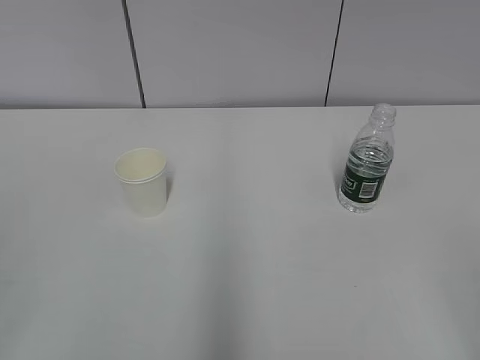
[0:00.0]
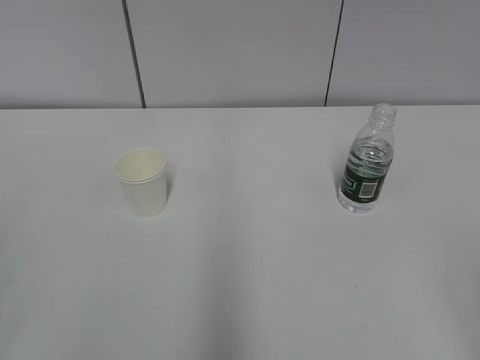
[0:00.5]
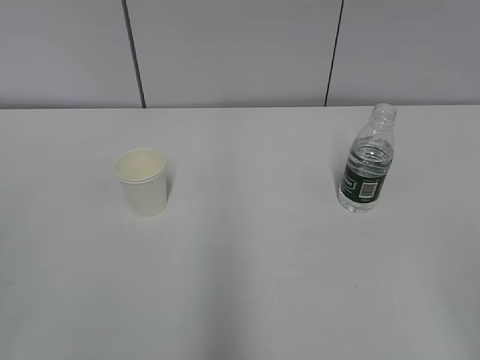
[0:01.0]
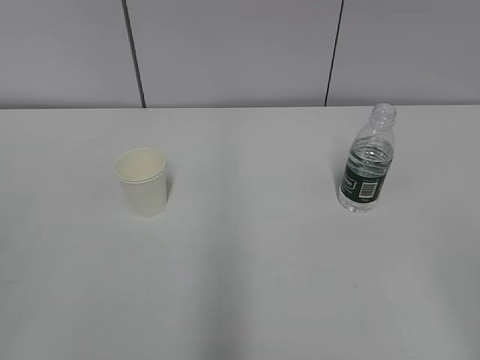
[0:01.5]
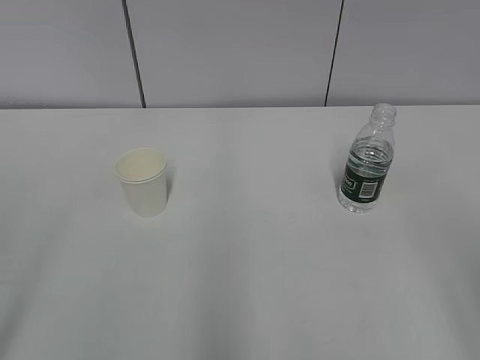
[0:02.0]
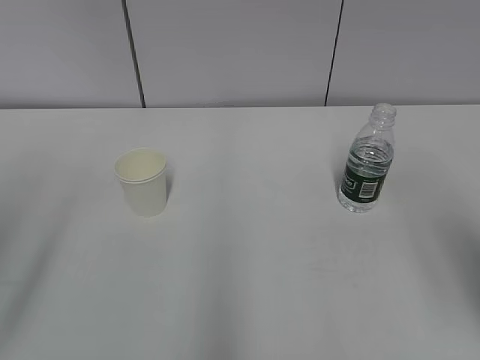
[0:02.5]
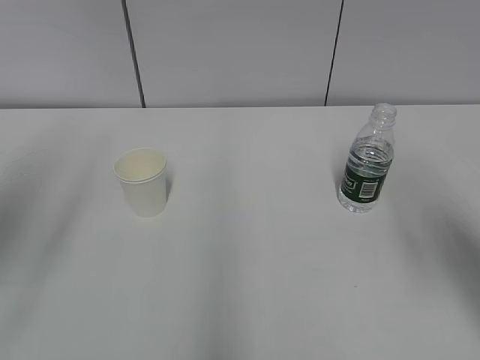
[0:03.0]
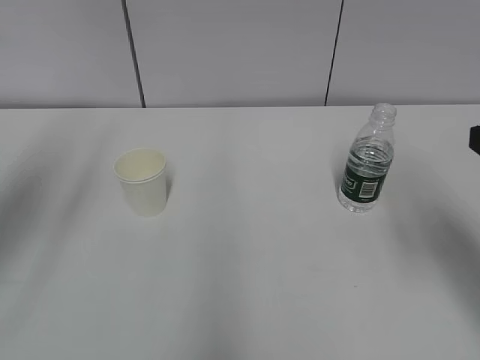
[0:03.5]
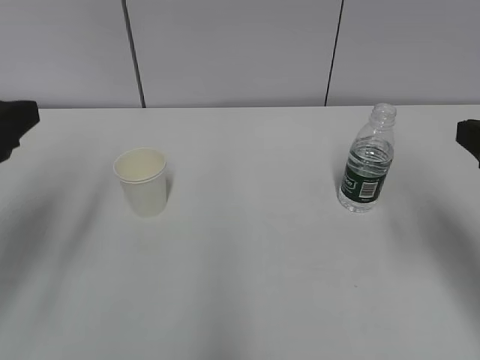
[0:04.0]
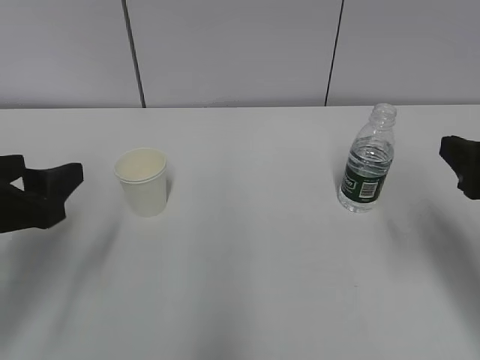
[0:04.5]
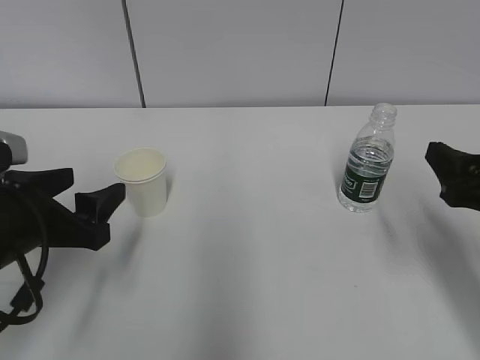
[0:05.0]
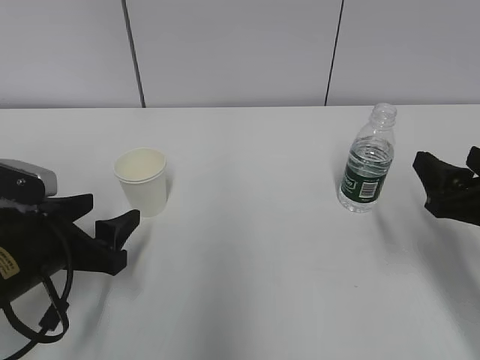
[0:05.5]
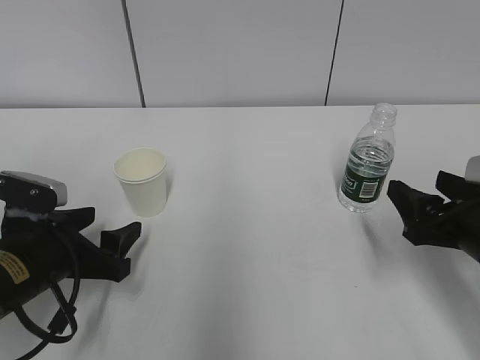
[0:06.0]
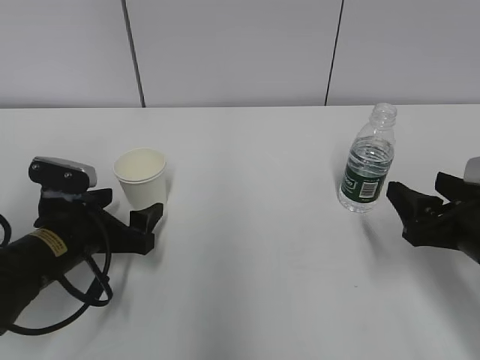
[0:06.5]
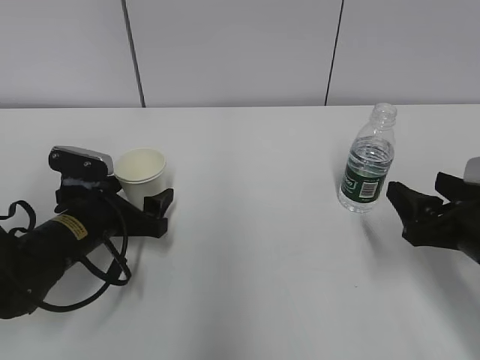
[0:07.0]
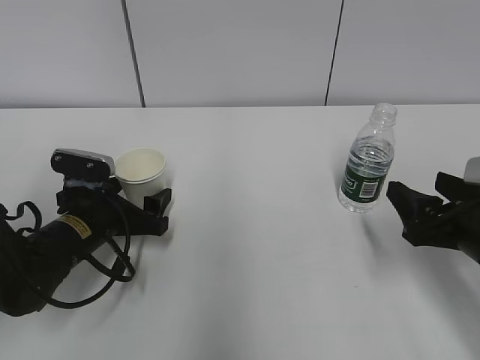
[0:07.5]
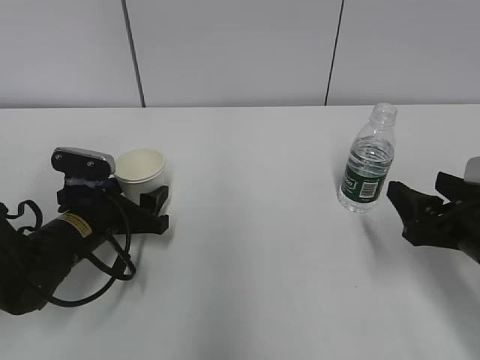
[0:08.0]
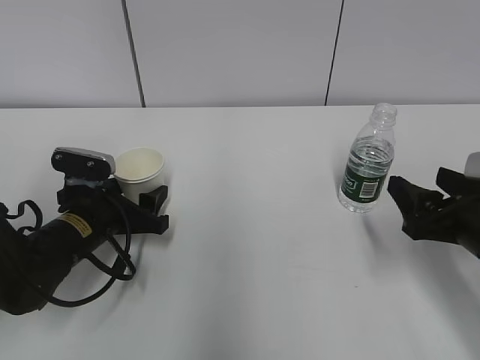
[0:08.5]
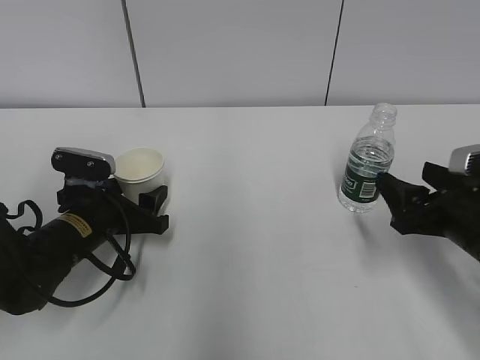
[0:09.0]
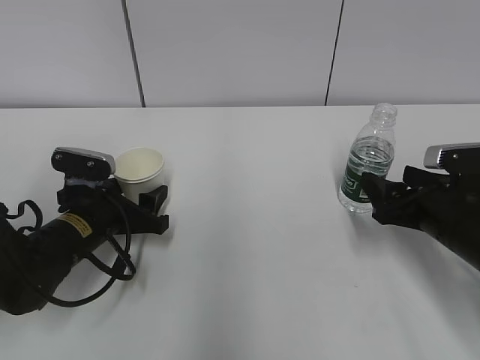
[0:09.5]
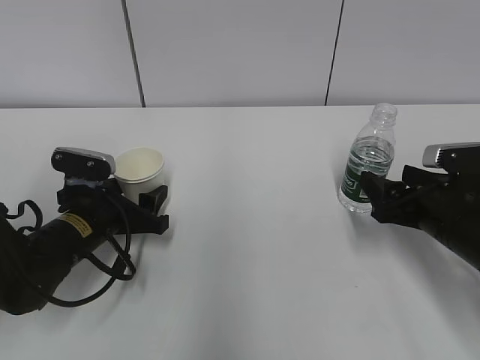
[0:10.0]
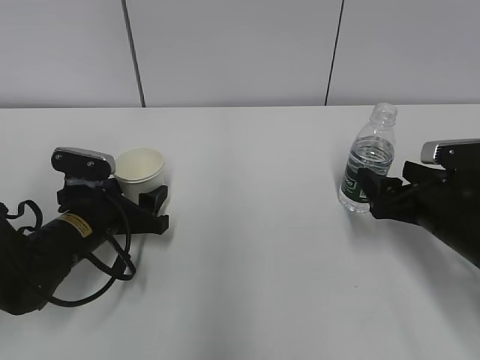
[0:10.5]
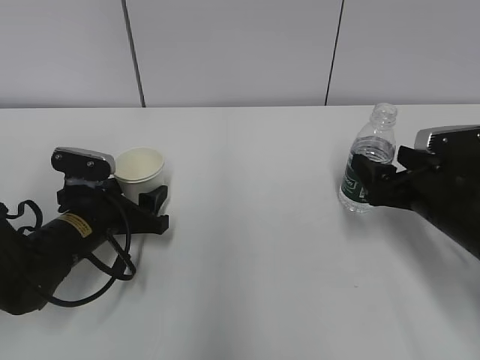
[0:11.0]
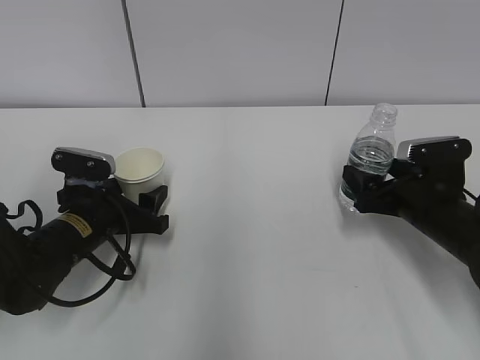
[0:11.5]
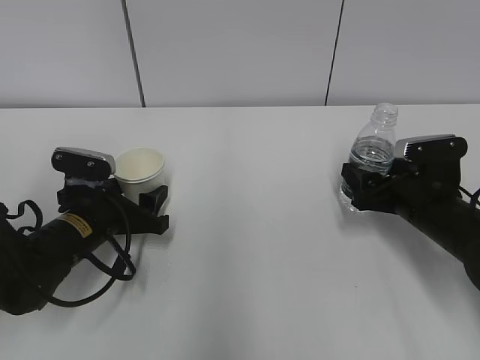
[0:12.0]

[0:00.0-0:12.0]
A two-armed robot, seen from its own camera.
Step, 0:00.0 to 0:11.5: Grab the paper cup with the left hand.
0:02.0 to 0:04.0: Both grippers travel together forward, about 20 cm.
0:04.0 to 0:06.0: The grippers both shift downward by roughly 15 cm.
0:06.0 to 0:08.0: The left gripper goes roughly 10 cm forward.
0:08.0 to 0:10.0: The right gripper is displaced forward by approximately 5 cm.
0:10.0 to 0:12.0: The right gripper opens and closes again.

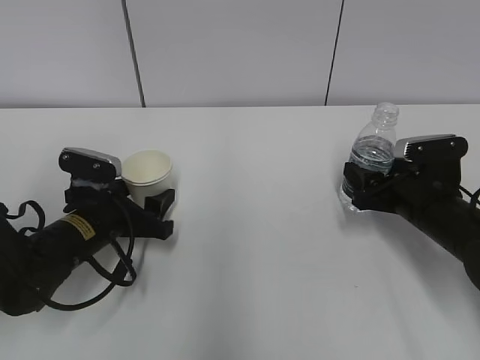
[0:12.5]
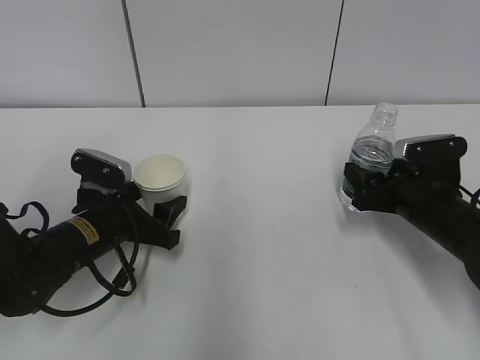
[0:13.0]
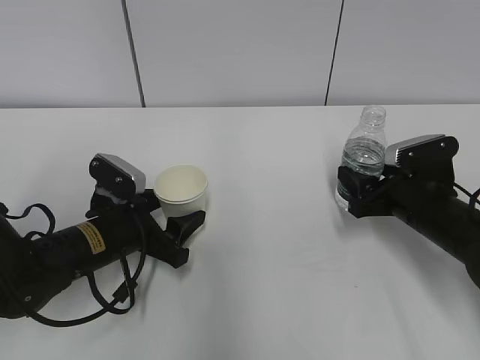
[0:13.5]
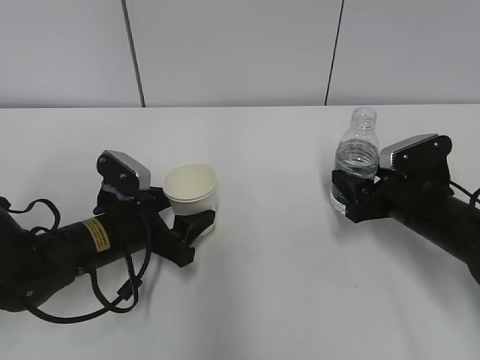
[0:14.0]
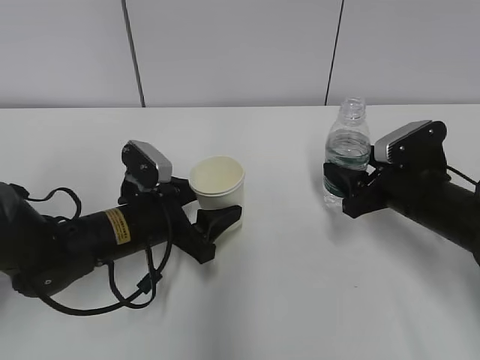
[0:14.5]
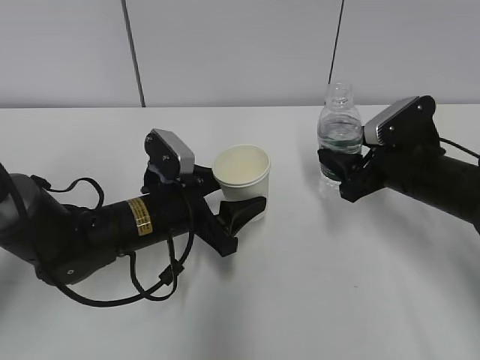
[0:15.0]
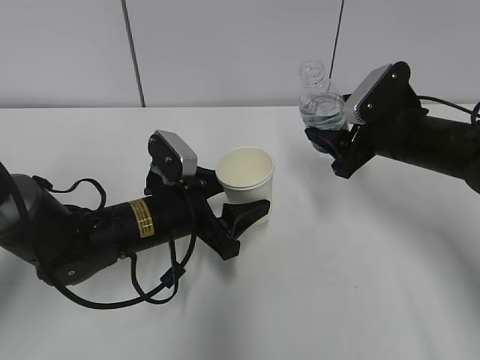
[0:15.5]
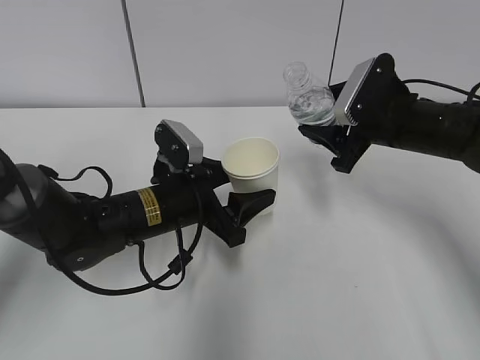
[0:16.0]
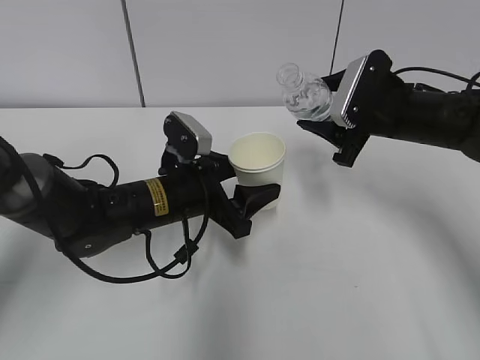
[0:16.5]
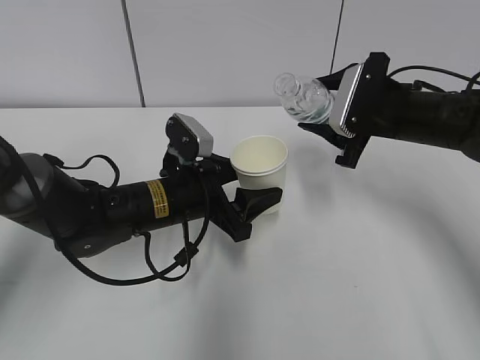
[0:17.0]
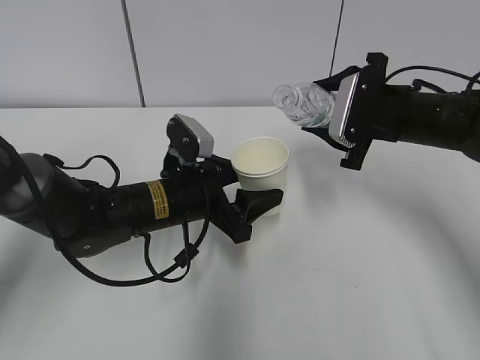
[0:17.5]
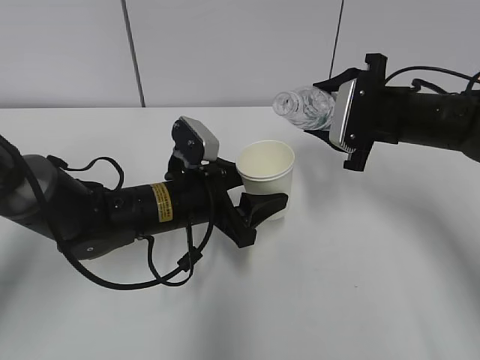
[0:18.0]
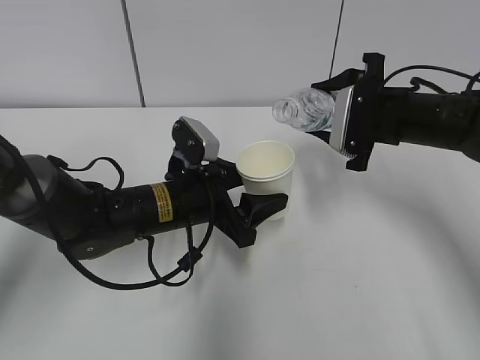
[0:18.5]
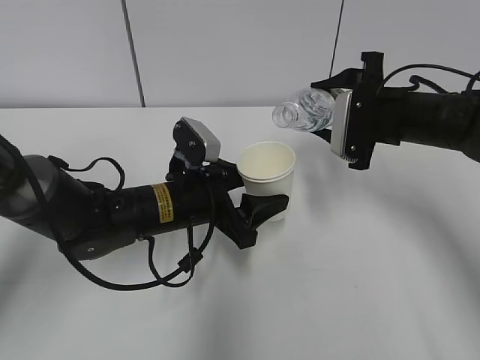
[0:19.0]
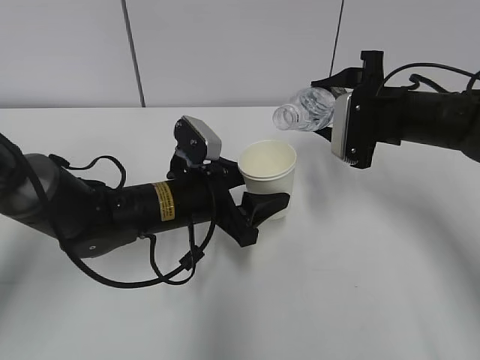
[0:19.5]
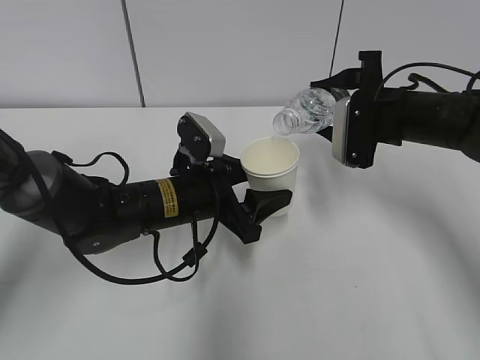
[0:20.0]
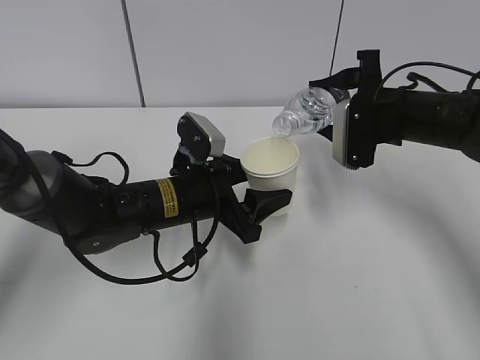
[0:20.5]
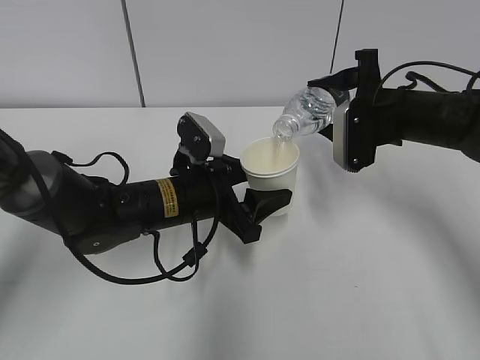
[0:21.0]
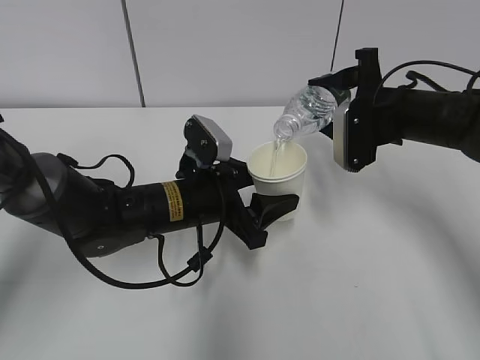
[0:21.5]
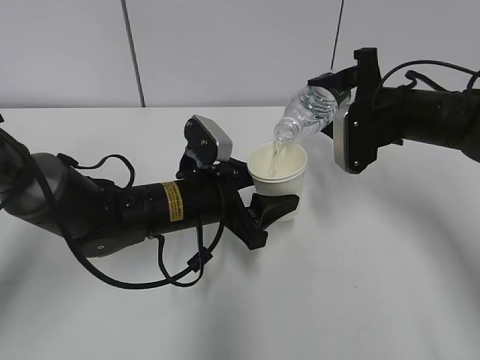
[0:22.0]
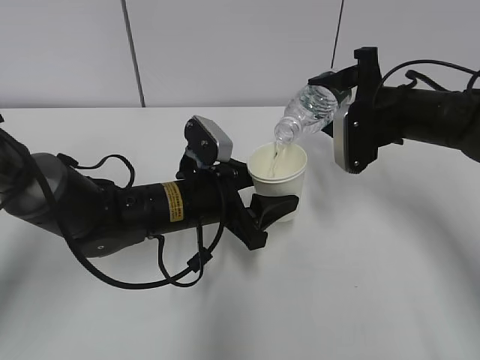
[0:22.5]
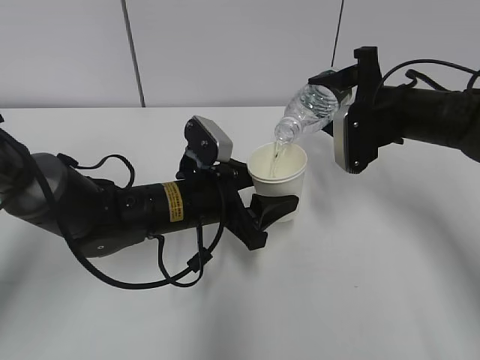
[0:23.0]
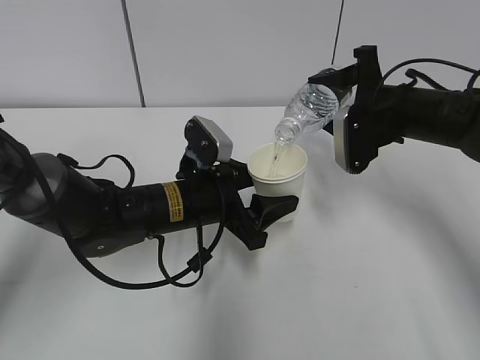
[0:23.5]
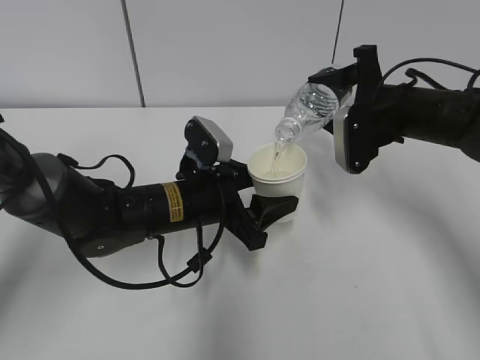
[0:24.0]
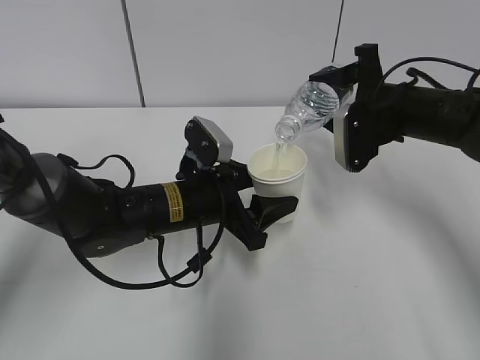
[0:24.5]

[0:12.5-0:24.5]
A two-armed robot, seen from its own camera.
Step, 0:12.5 to 0:17.0: Lift the paper cup with the left hand.
Step, 0:17.5 to 0:21.0: Fill water with the left hand.
Step, 0:17.5 to 0:21.0: Pour water with the right hand.
0:12.5 to 0:14.5: The left gripper shifts approximately 5 cm to the right.
0:14.5 to 0:16.5: The left gripper ends up about 5 cm from where it was. Meanwhile the right gripper travels upward and forward by about 10 cm.
0:18.5 to 0:20.5: The grippers stay close to where they were, moving slightly.
0:20.5 to 0:22.5: The grippers move only a little.
0:22.5 to 0:24.5: Both grippers stay put.

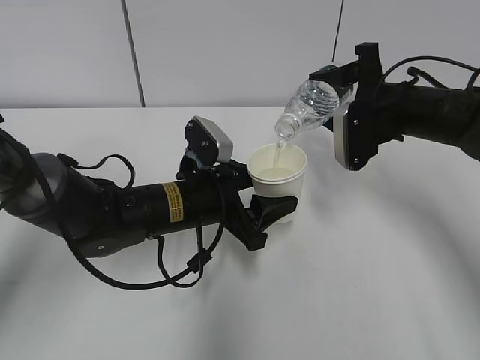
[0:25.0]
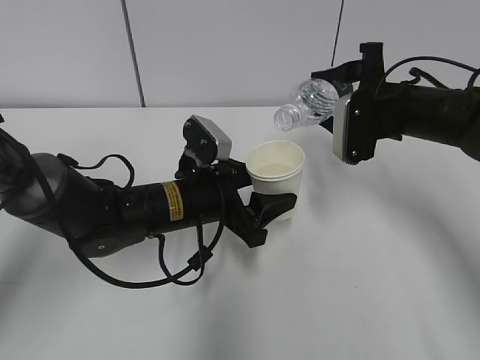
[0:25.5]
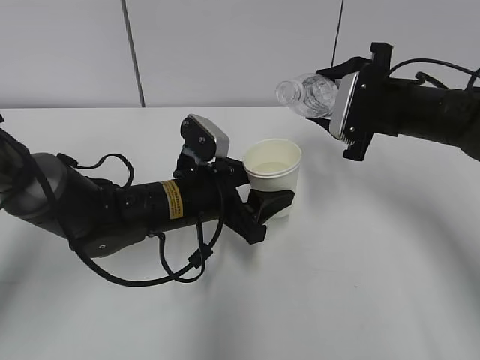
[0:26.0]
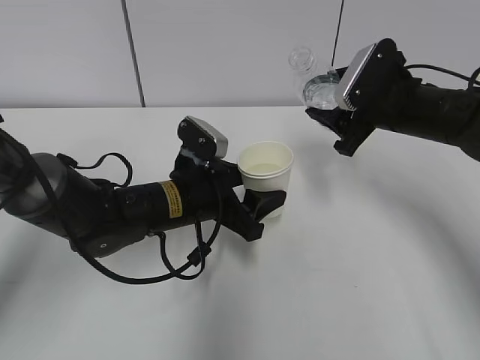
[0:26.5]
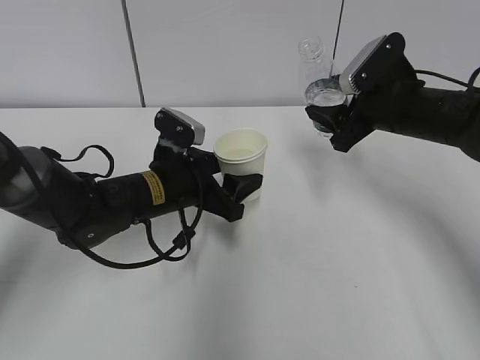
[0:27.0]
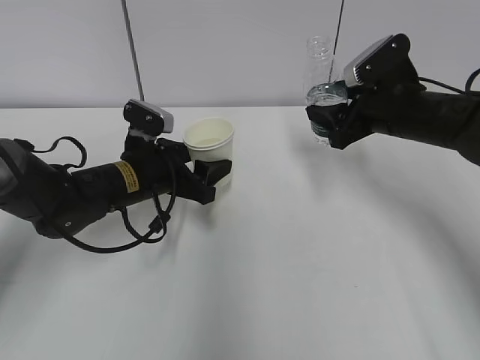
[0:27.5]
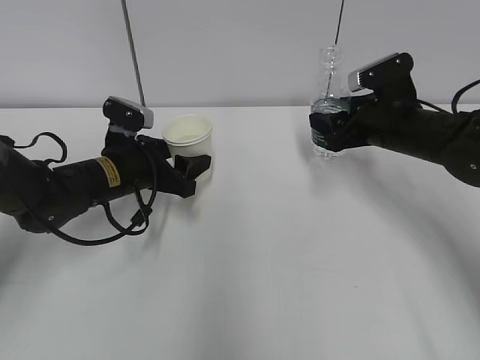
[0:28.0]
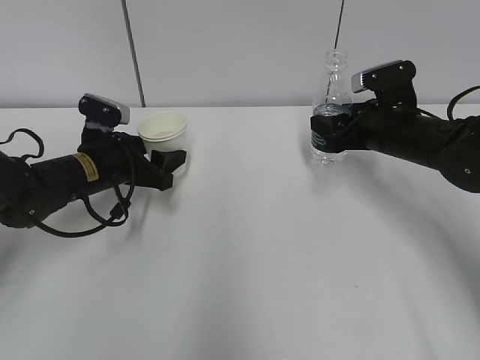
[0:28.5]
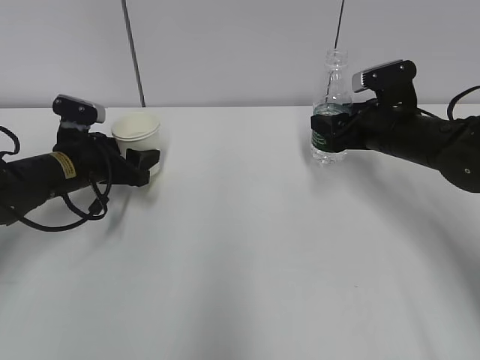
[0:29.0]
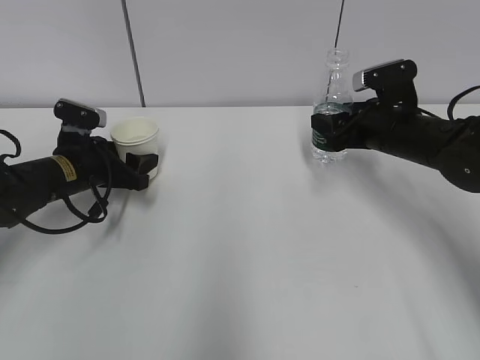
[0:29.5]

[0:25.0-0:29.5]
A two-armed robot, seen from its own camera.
Step, 0:25.5 to 0:28.0: Place the water bottle with the right hand.
0:27.0 to 0:29.5: The left gripper heads to the left, covering about 15 cm.
